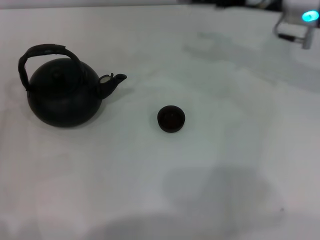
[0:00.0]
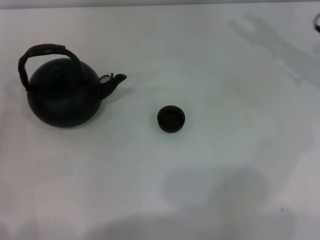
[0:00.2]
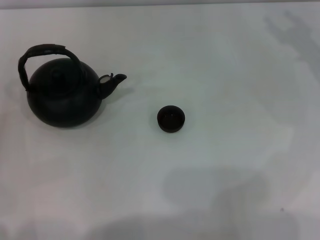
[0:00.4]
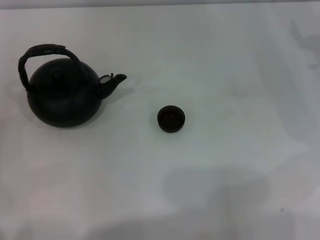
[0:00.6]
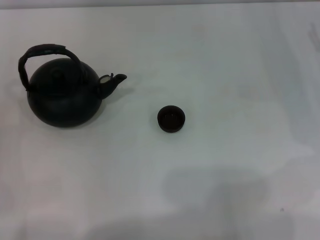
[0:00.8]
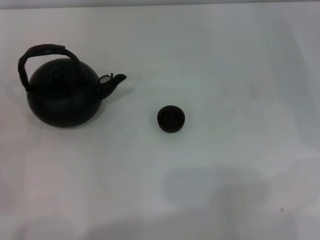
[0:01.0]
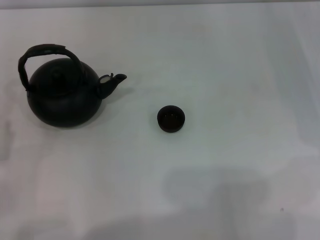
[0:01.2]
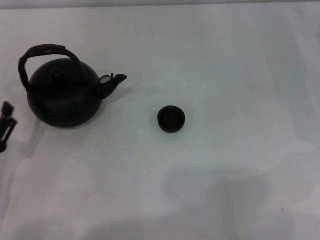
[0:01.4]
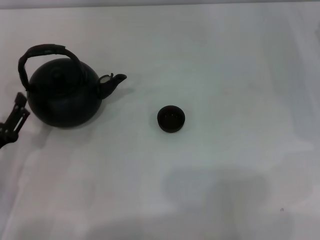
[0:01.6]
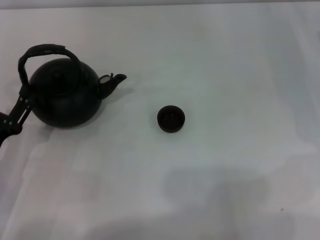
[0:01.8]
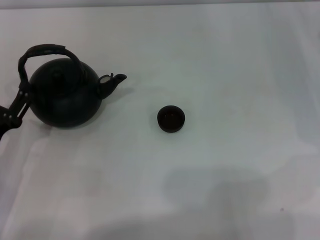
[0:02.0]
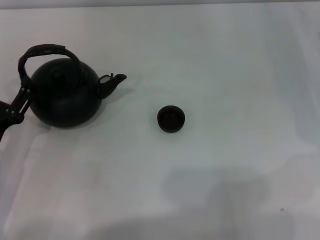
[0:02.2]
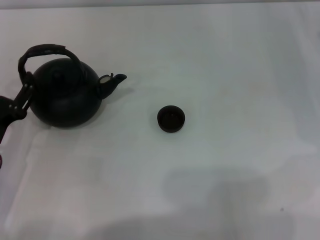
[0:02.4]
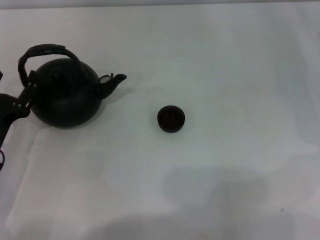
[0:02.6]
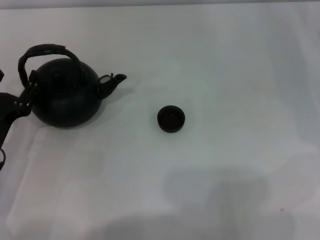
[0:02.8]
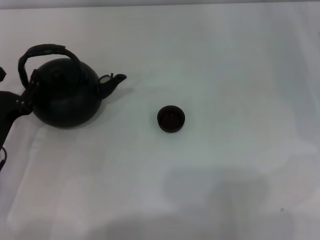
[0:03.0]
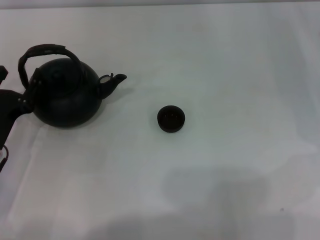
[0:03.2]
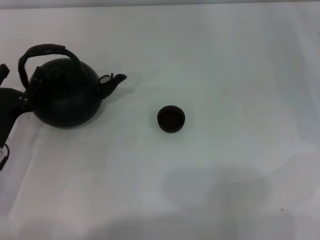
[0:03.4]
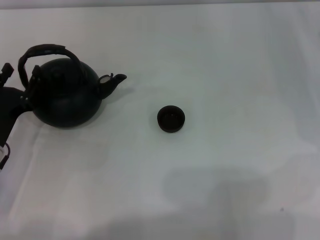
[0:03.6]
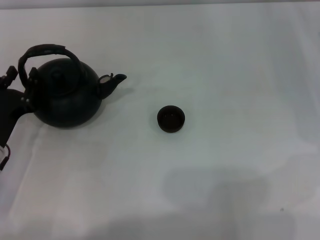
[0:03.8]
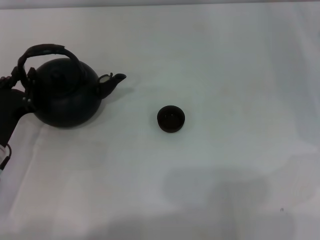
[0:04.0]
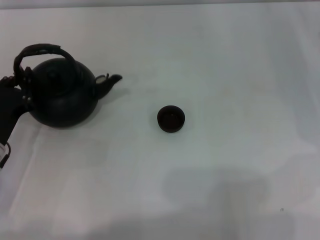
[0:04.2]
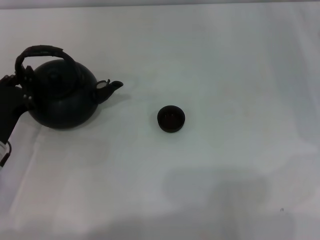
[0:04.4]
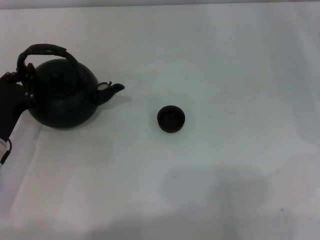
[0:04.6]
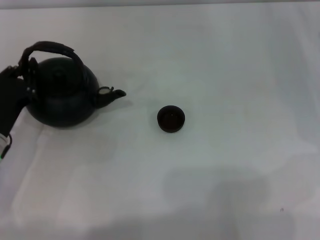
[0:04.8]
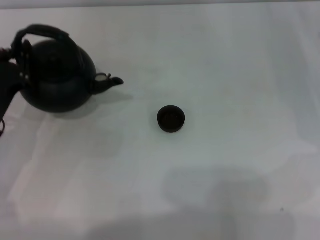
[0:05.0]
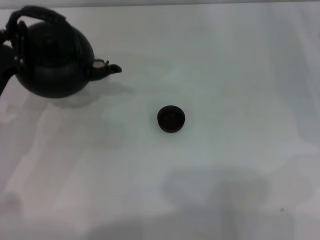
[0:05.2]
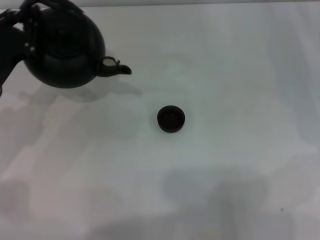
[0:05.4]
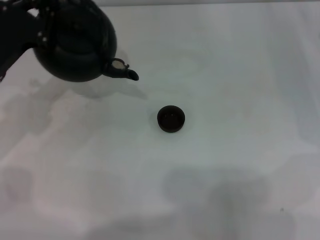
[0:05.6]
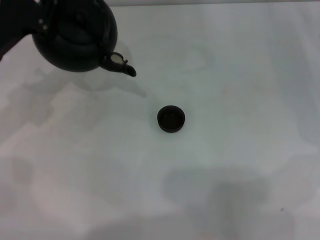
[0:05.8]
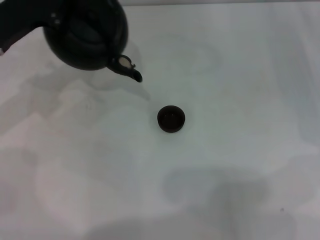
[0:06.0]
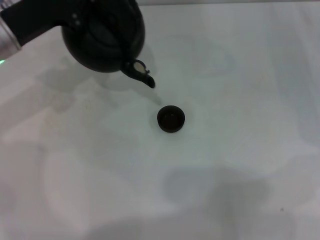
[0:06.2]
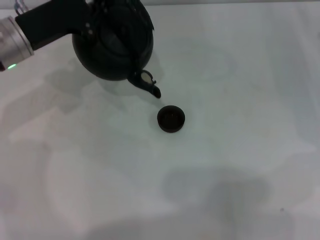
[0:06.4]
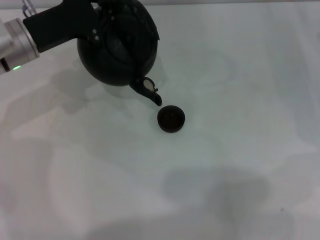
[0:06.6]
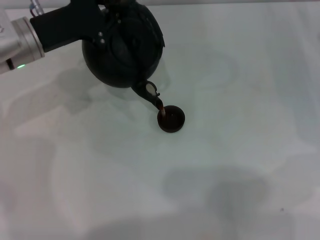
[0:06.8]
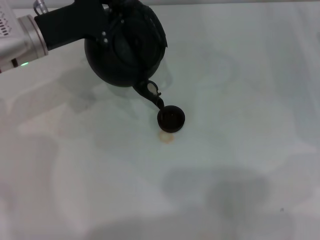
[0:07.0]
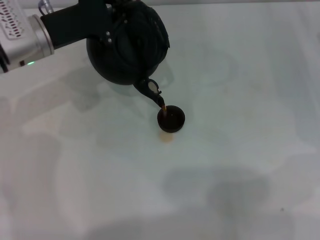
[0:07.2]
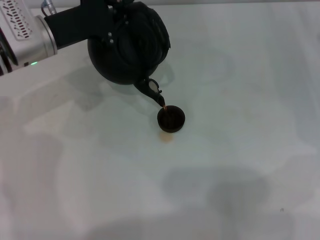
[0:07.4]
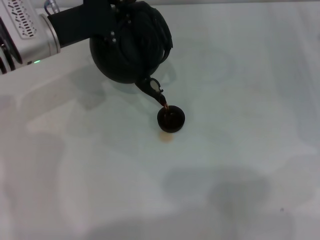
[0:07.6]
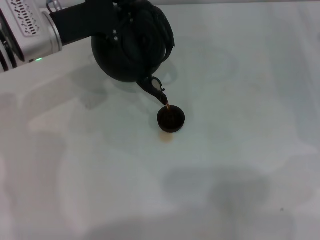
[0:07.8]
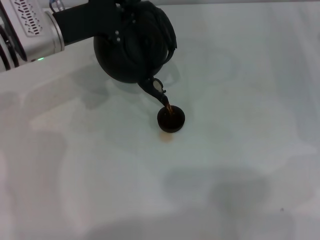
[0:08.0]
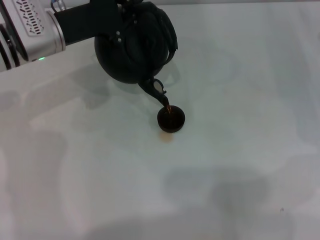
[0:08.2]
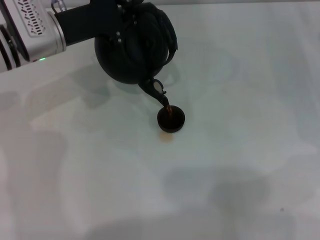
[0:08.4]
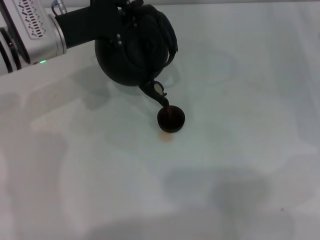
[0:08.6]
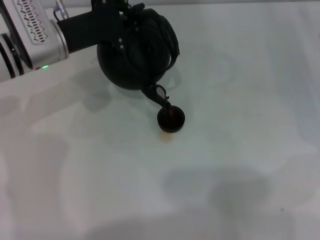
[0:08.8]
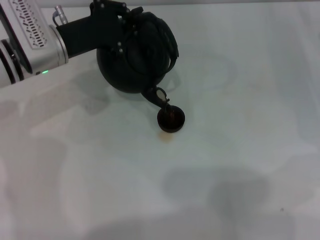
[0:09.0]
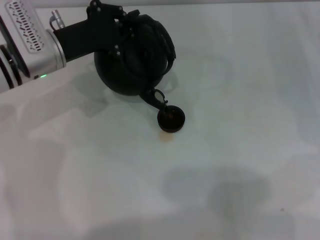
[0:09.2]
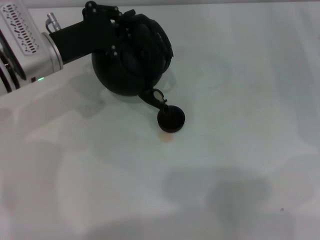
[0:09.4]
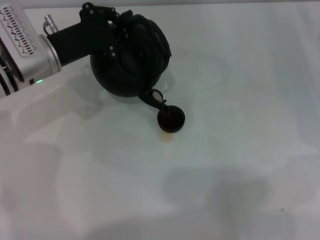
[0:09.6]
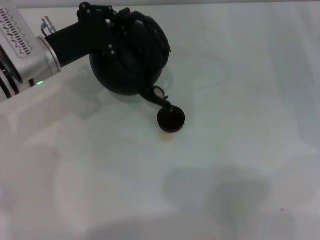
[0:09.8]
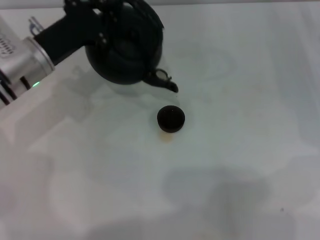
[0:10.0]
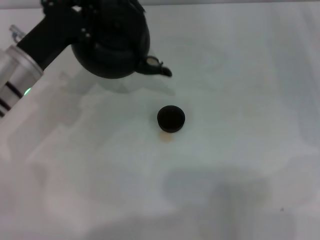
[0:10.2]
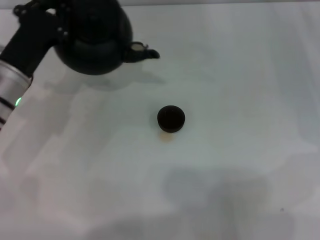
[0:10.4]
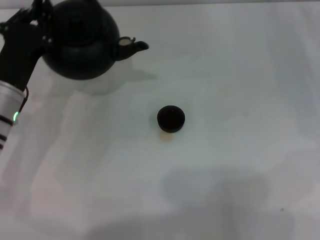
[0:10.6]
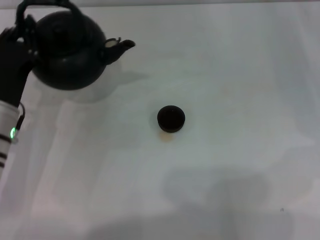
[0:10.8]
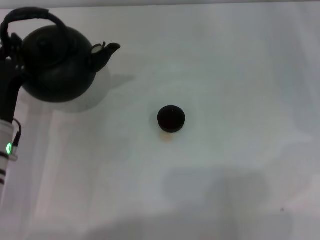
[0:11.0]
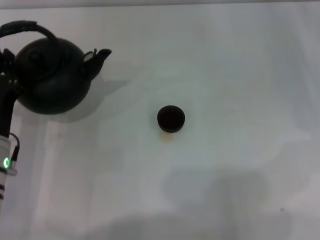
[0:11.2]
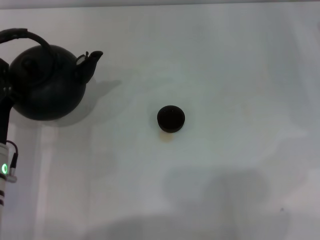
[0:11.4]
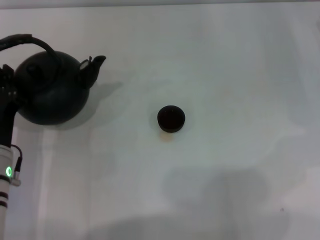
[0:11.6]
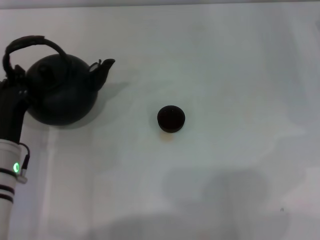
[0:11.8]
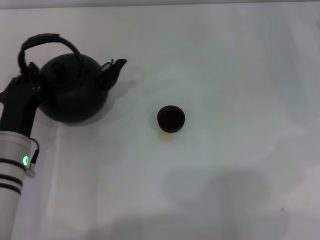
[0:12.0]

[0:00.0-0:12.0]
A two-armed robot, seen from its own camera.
Task of the whole recording: Grasp the handle of the teapot with one hand and pour tea into the teacup.
Step, 0:00.0 to 0:05.2: Pick up the teapot with the left gripper.
Step, 0:05.4 to 0:10.0: Pour tea into the teacup with the left gripper.
0:00.0 to 0:01.6: The right gripper travels to the right and downward by approximately 15 cm; the left gripper changes place by some 5 cm.
0:01.6 to 0:03.0: The left gripper goes about 5 cm forward.
0:03.0 to 0:04.4: The left gripper closes up.
0:04.4 to 0:06.0: The left gripper goes roughly 15 cm forward and upward.
0:06.0 to 0:07.6: The left gripper heads to the right, covering roughly 5 cm.
0:07.6 to 0:09.0: The grippers stay close to where they were, moving slightly.
0:09.0 to 0:10.4: The left gripper travels backward by some 5 cm.
0:10.4 to 0:12.0: The left gripper travels backward and downward by approximately 10 cm.

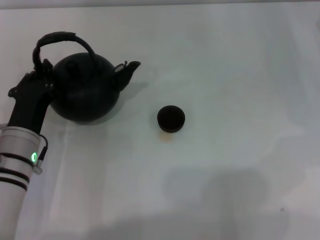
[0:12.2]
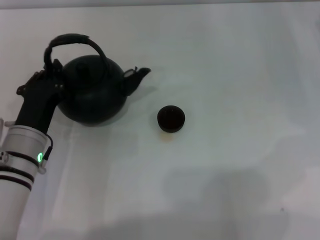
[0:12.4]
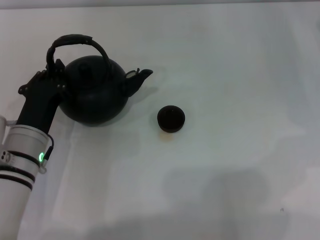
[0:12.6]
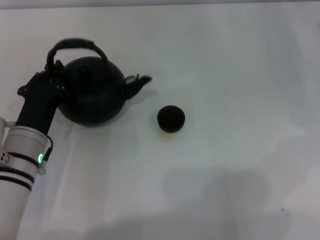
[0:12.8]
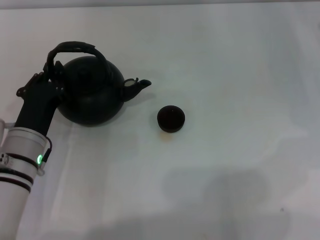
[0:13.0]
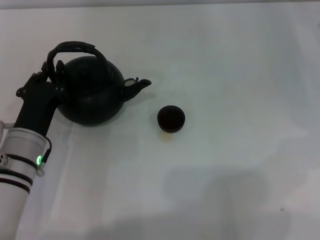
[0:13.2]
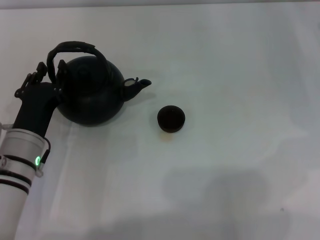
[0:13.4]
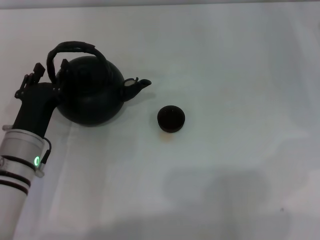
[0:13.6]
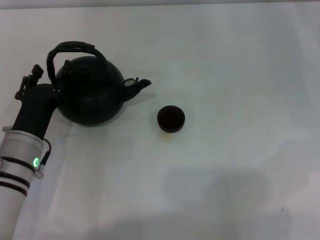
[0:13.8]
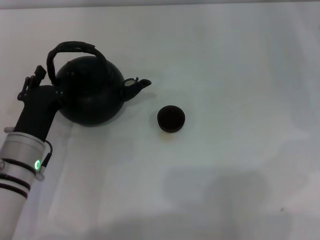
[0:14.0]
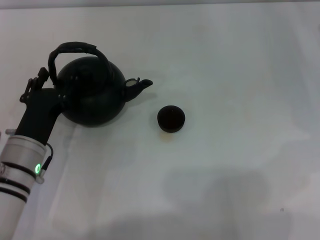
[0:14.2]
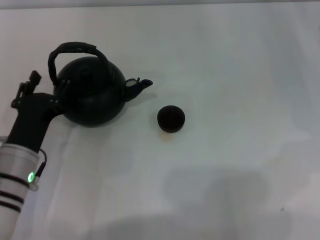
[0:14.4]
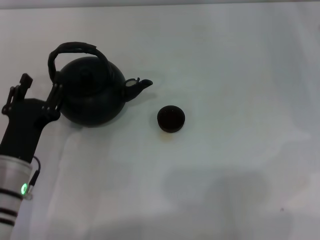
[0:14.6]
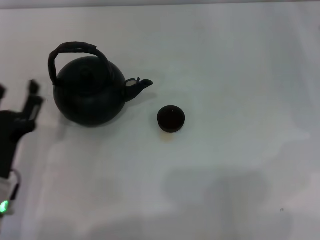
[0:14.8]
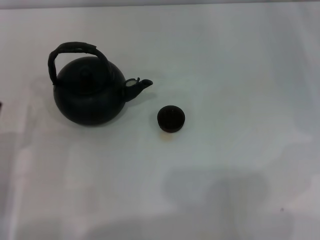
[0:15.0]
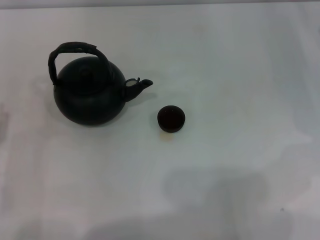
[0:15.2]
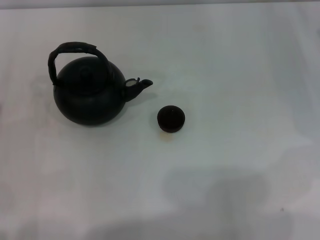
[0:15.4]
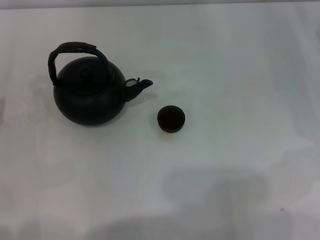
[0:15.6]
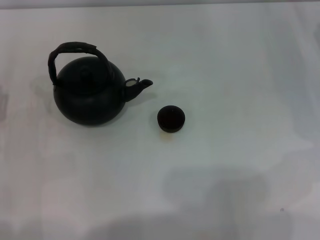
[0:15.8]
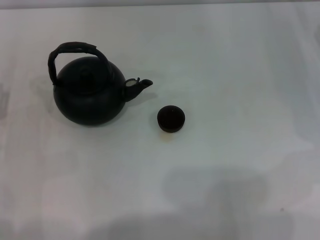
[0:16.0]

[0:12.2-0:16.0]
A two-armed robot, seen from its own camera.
Task of the whole recording: Grasp the handle of the teapot with one hand and pour tea into the teacup.
Step, 0:12.2 to 0:14.6: Put down the teapot with the left gripper.
0:12.2 to 0:13.4: The grippers make only small movements.
0:13.4 to 0:14.8: The left gripper moves backward, approximately 5 cm, and opens its fingers.
0:14.8 to 0:16.0: The left gripper travels to the left by roughly 10 cm.
